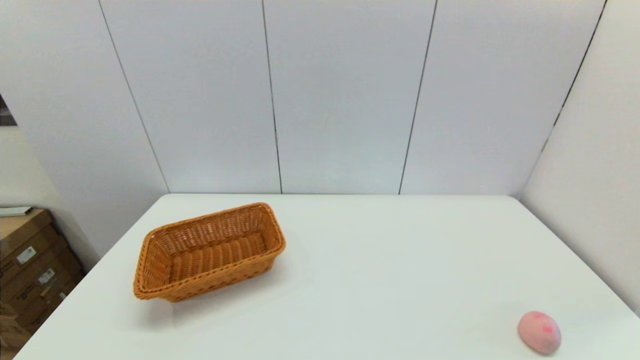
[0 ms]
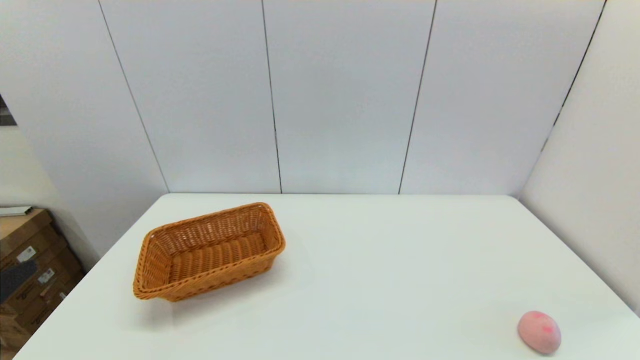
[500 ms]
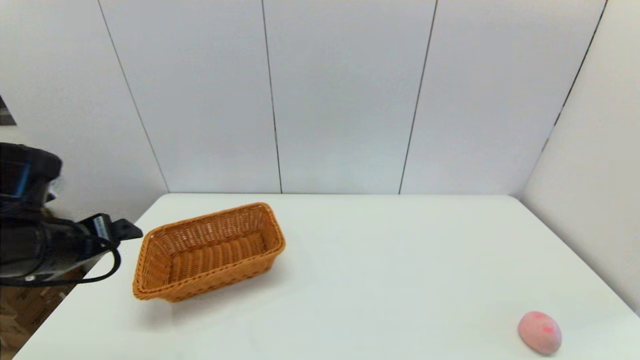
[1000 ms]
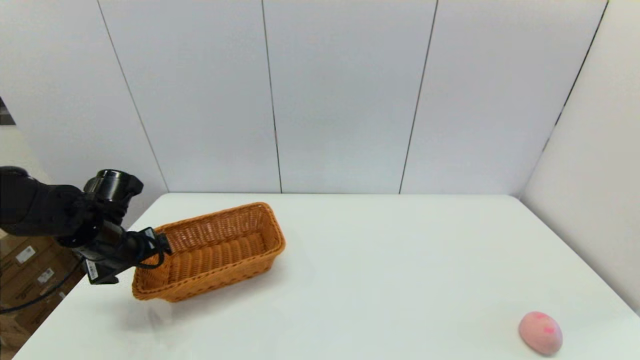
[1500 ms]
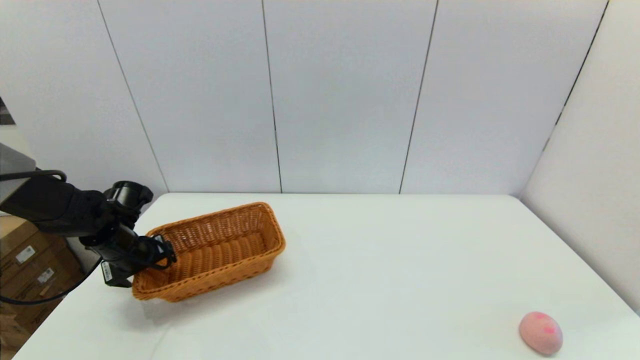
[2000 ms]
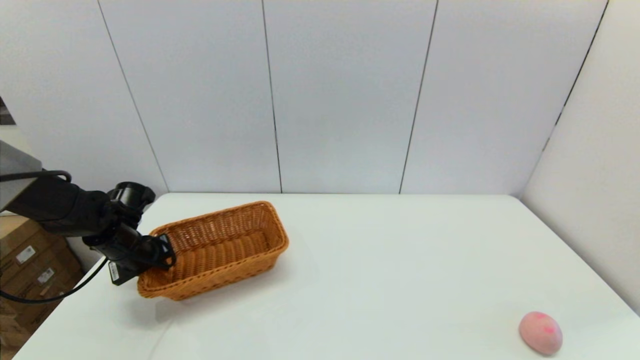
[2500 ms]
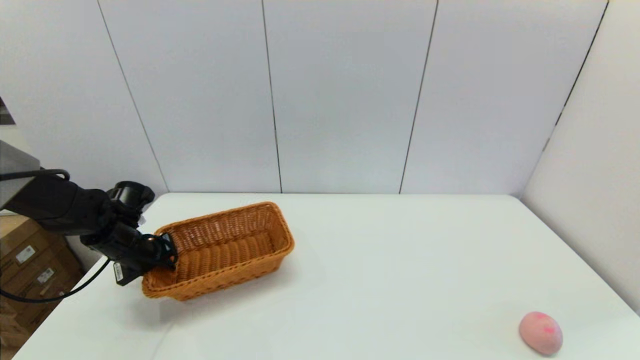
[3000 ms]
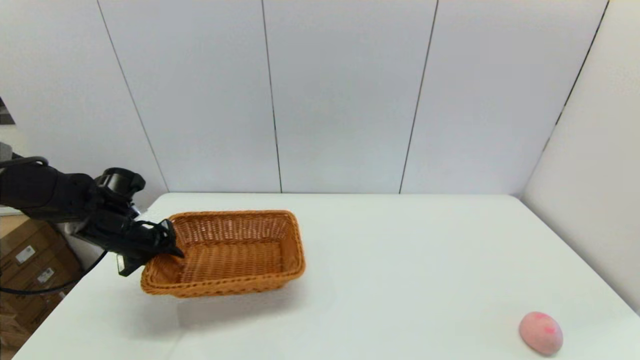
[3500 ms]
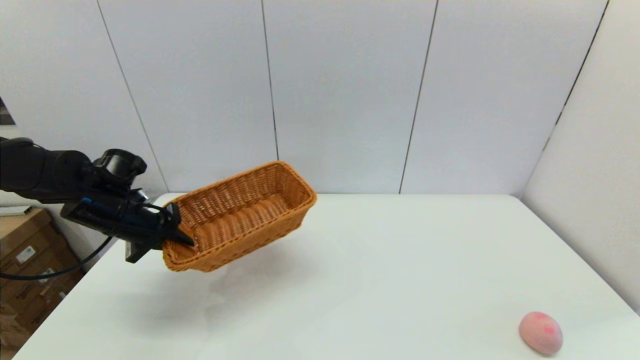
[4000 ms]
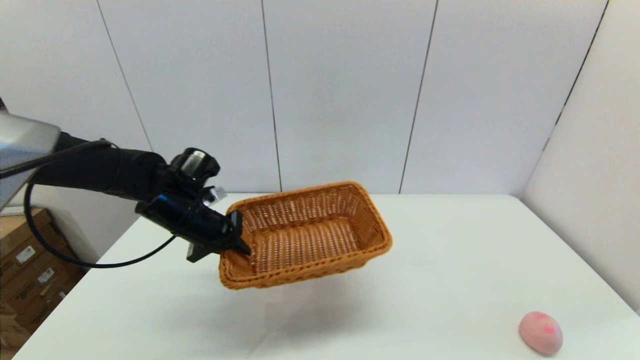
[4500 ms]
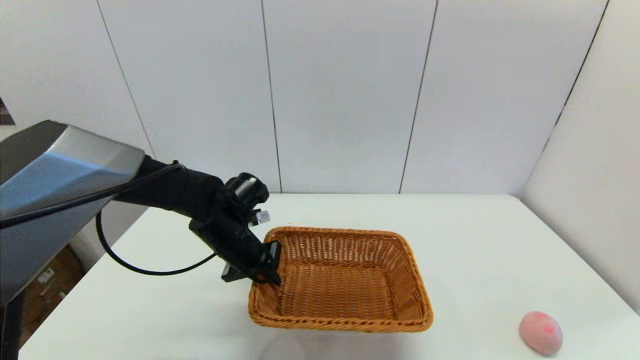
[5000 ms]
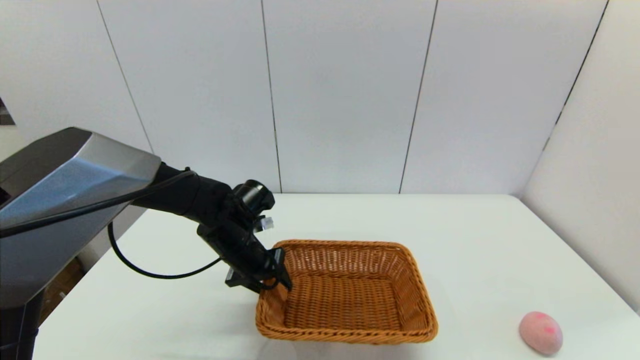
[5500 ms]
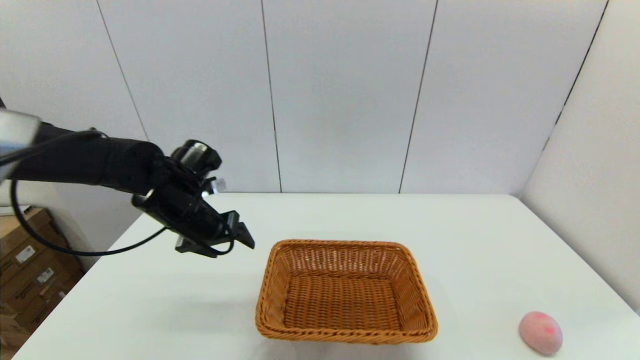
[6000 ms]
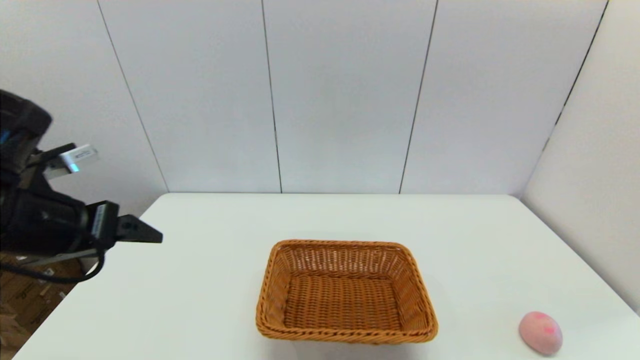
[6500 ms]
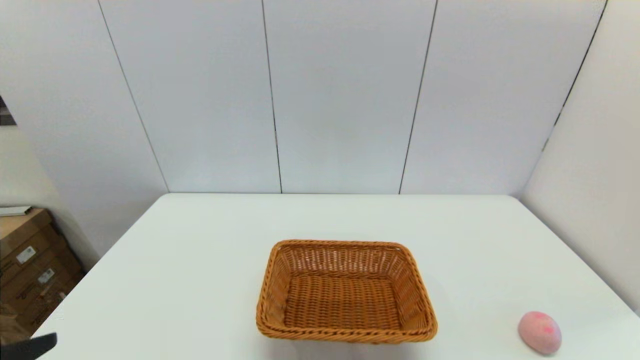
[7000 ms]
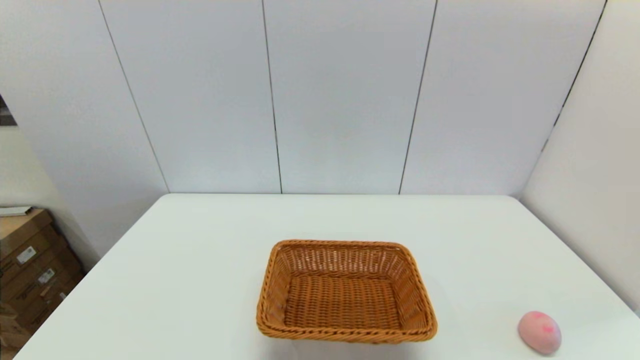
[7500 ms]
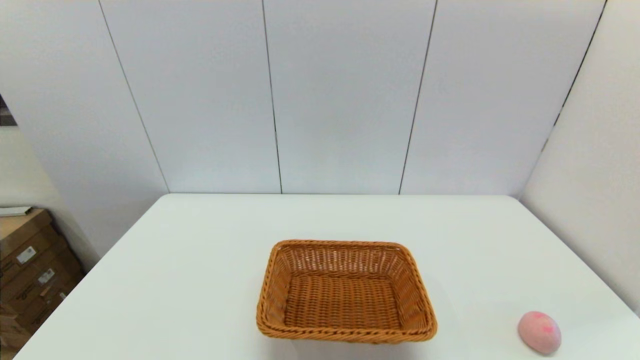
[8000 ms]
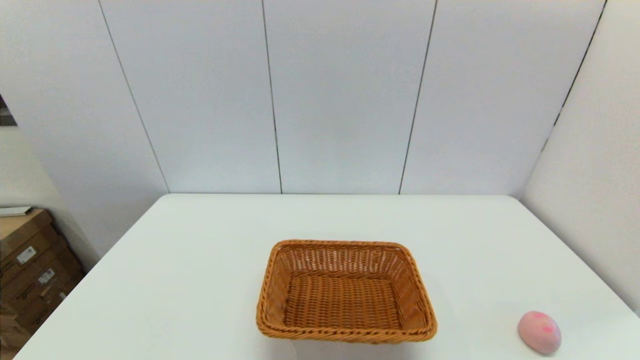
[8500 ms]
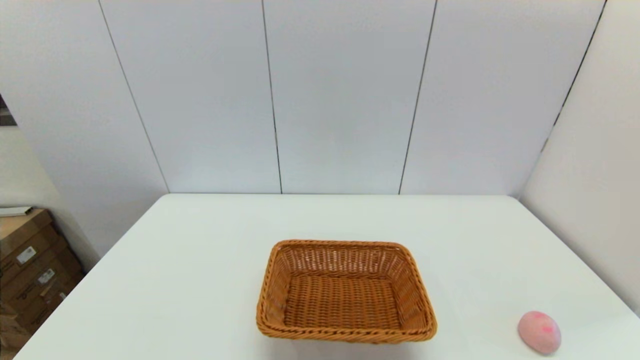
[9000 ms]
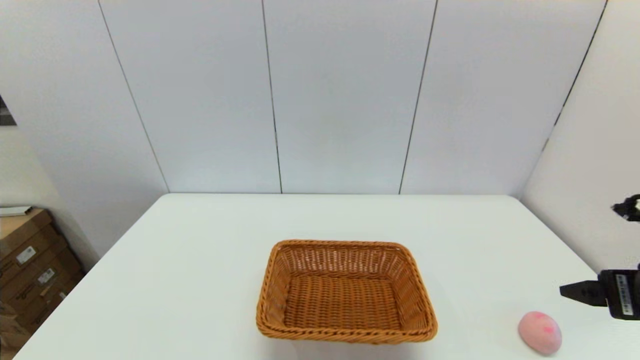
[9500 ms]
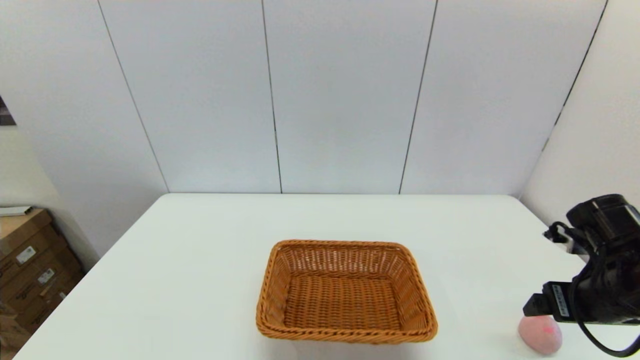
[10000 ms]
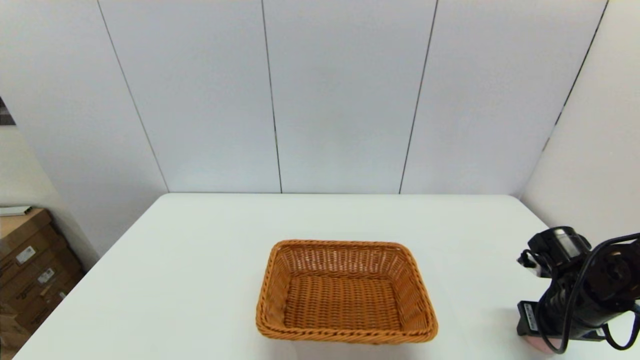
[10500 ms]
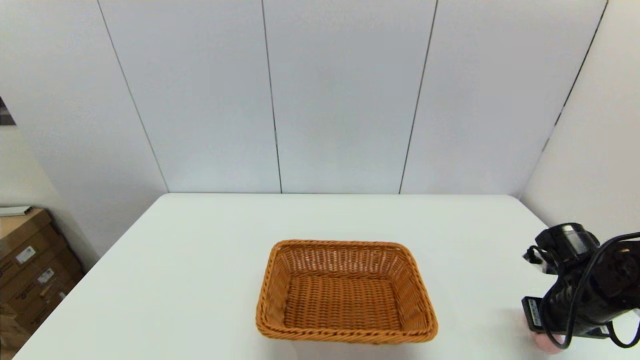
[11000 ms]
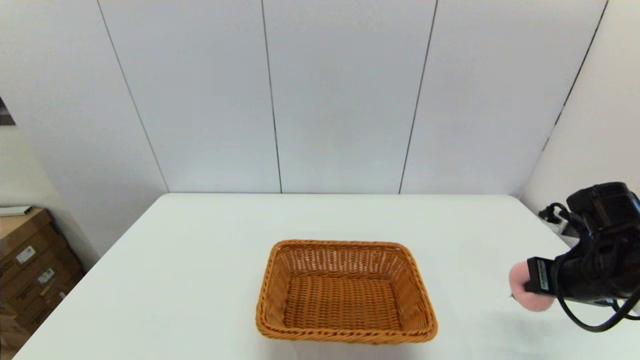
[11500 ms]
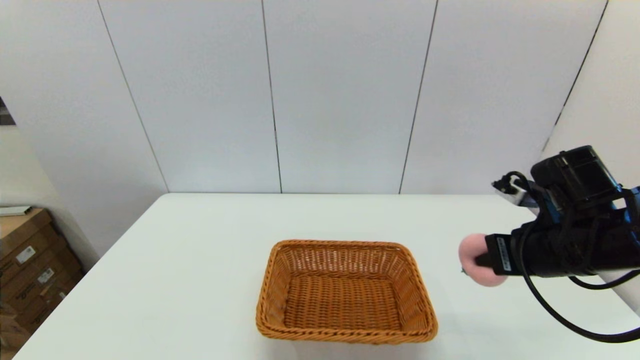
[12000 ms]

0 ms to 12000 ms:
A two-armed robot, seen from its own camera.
Step, 0 ms to 3000 ms: Grasp the light basket with the left gripper.
Step, 3500 ms to 5500 ms: Place the light basket on the middle of the table with the left gripper.
Step, 6000 ms to 10500 ms: Grasp the peach with the right gripper.
0 ms to 2000 ms: The left gripper is displaced forward by some 40 cm.
2000 ms to 4000 ms: The left gripper is displaced upward by some 5 cm, and closes its fingers.
4000 ms to 6000 ms: The left gripper goes about 10 cm to the right, and opens.
6000 ms to 8000 ms: The left gripper shifts approximately 35 cm backward.
8000 ms to 10000 ms: The right gripper is displaced forward by roughly 25 cm.
10000 ms to 12000 ms: The right gripper shifts about 10 cm to the left and upward, and closes.

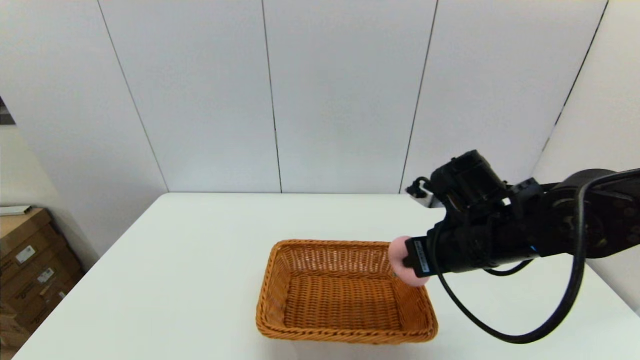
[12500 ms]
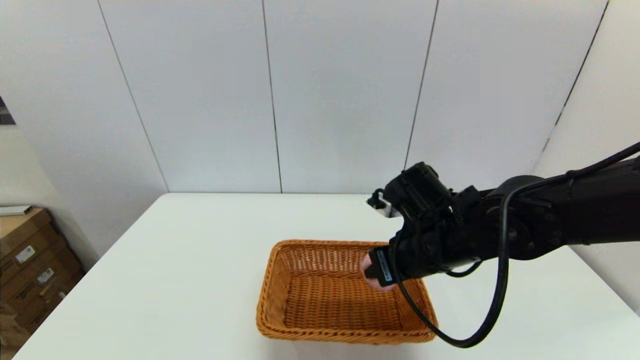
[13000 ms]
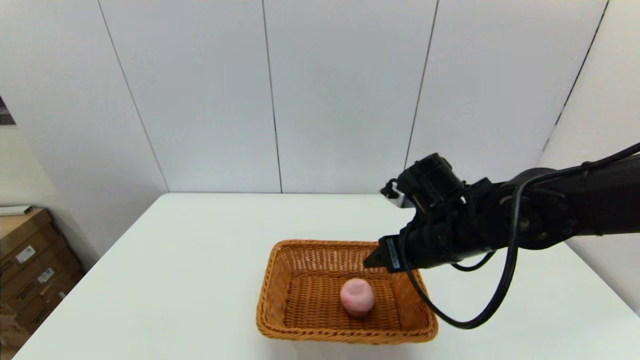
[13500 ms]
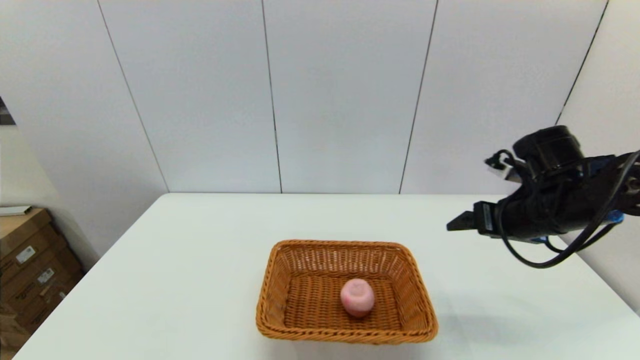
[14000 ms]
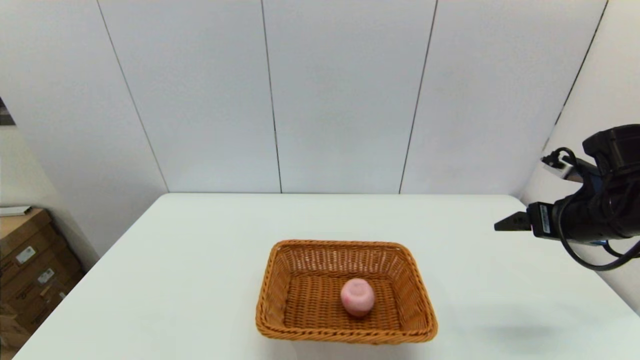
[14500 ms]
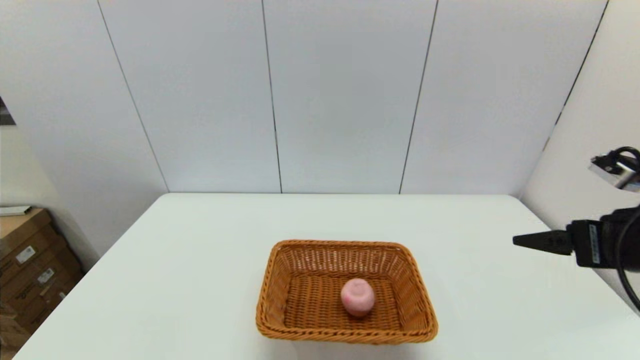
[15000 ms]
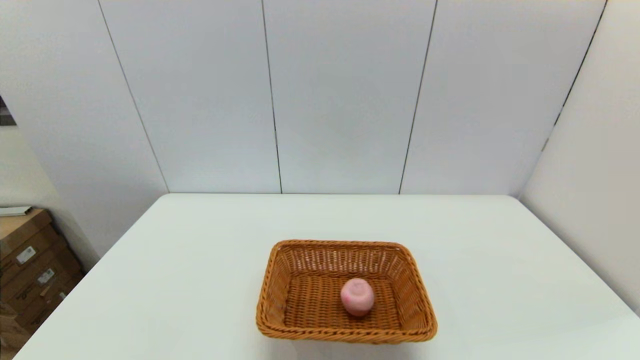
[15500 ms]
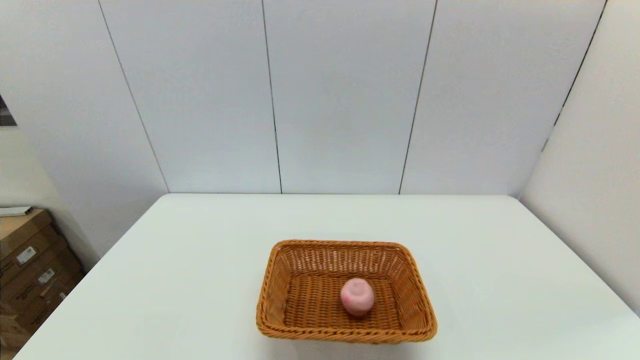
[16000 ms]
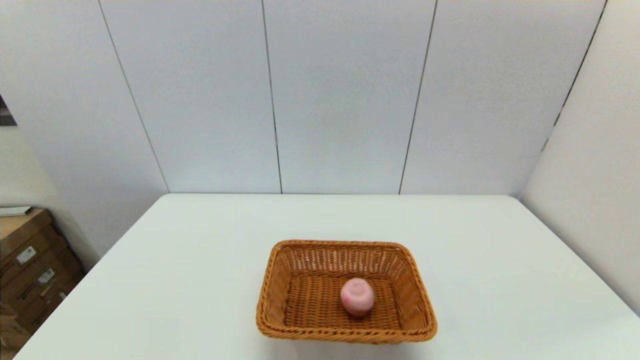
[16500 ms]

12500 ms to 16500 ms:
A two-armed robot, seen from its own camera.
12500 ms to 14500 ms: The right gripper moves to the right, about 15 cm, and opens its fingers.
14500 ms to 16500 ms: The right gripper is displaced backward by roughly 30 cm.
